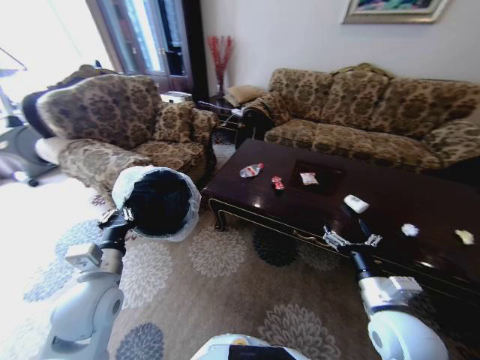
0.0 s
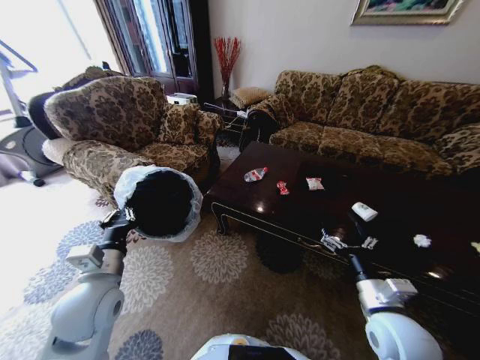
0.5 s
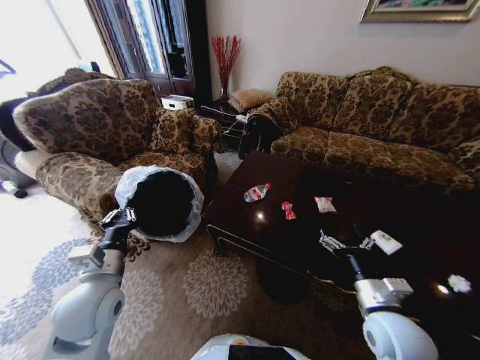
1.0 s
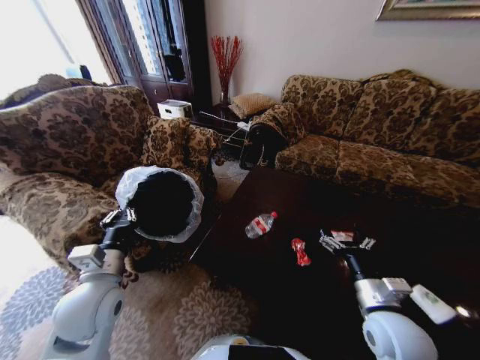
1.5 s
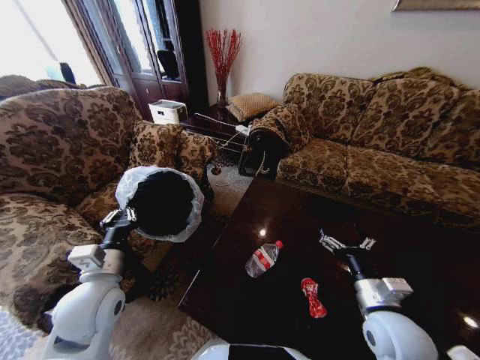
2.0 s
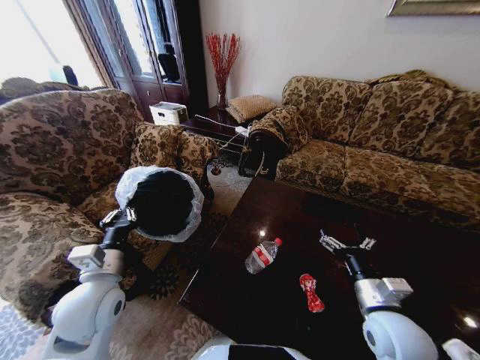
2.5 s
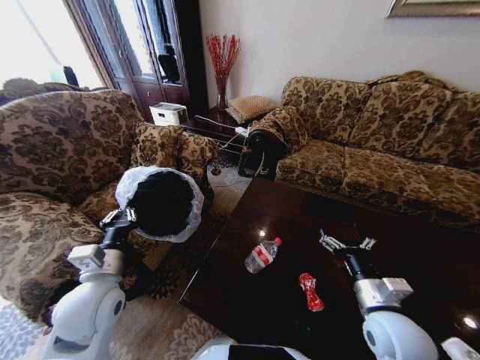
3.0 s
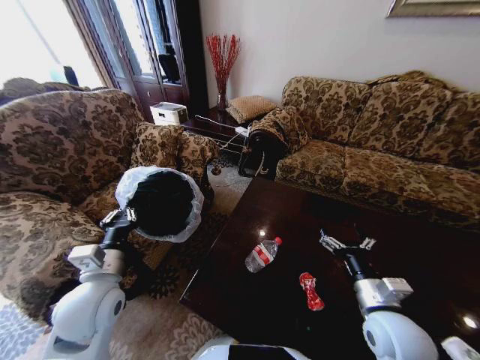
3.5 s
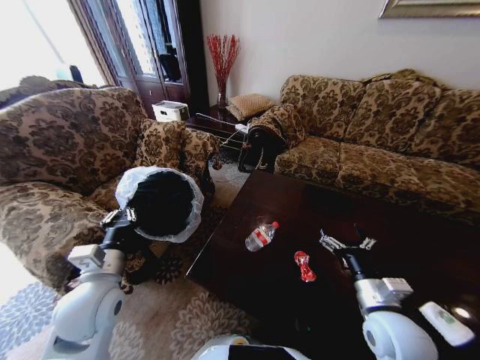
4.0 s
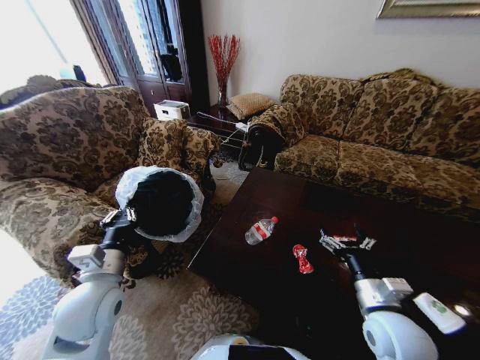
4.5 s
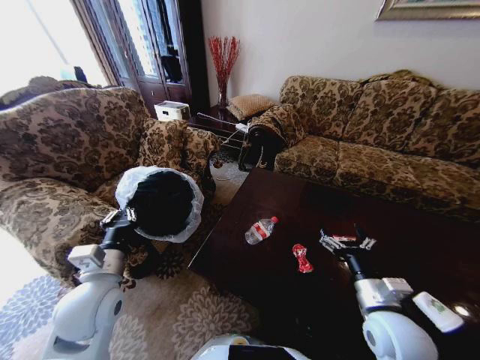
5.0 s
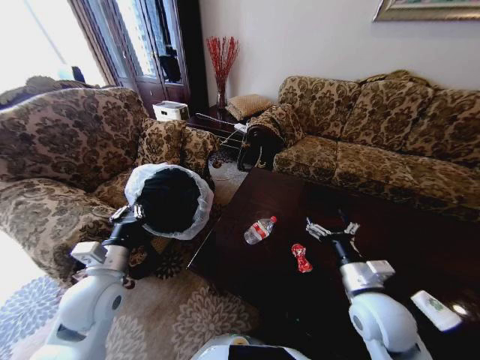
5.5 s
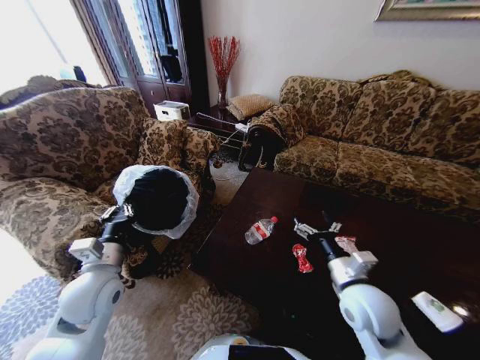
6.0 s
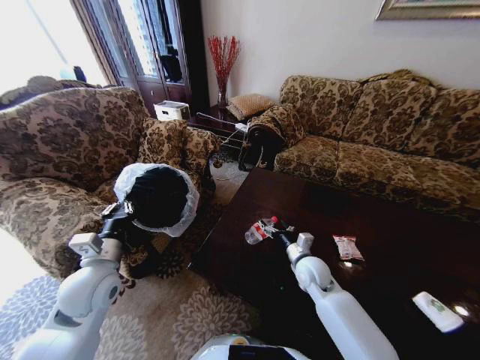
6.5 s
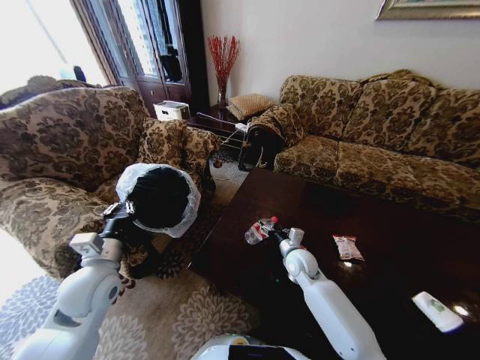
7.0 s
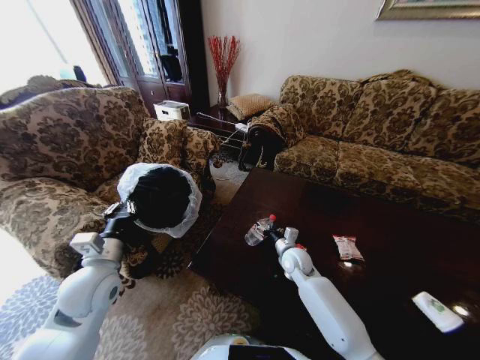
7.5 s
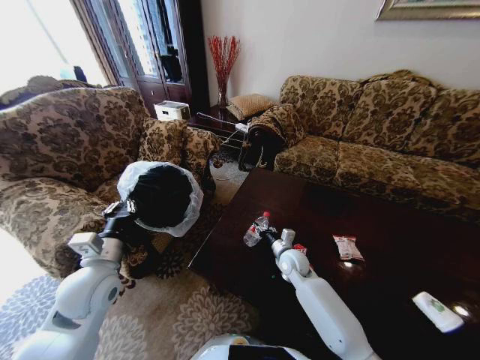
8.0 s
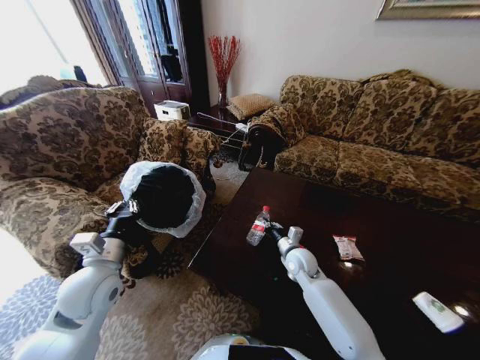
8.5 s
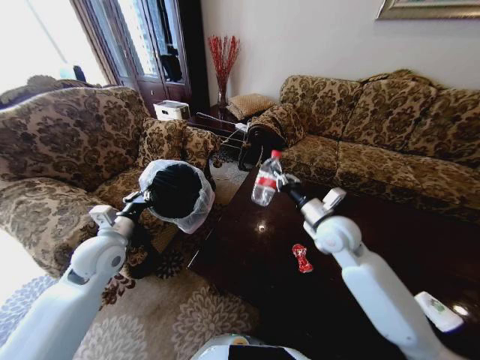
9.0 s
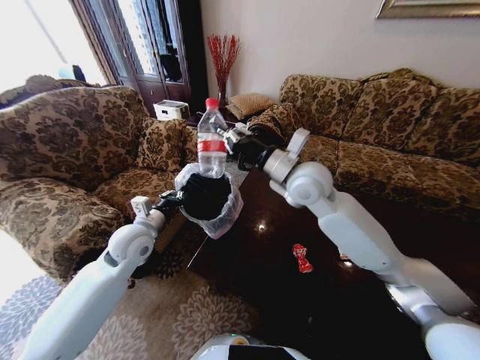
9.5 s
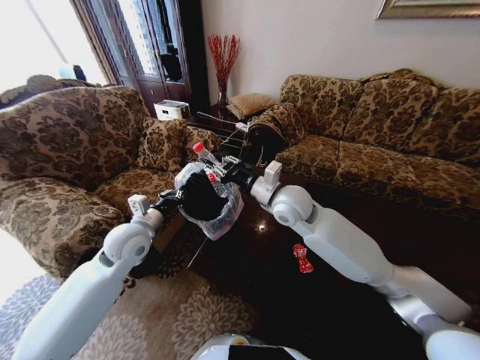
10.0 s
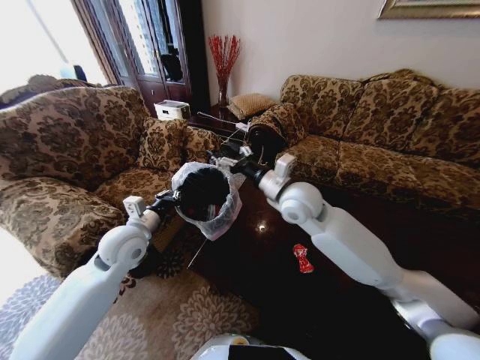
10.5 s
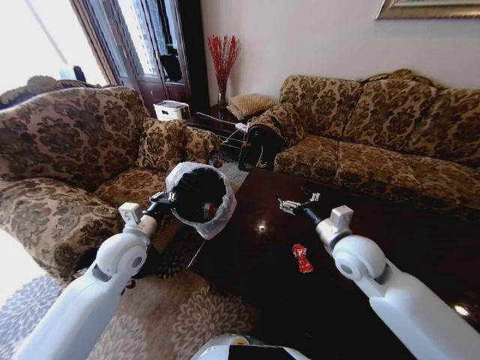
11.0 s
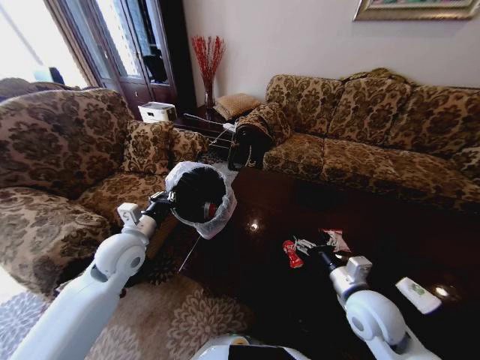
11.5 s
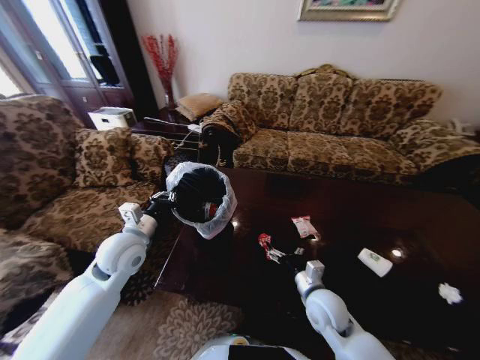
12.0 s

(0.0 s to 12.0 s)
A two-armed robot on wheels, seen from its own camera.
Task of the whole recording: Move to the front of the table and place the trash on the table into the trash bin.
4.0 s - 6.0 s: The right gripper shifts by about 5 cm.
6.0 s - 8.0 s: The right gripper goes approximately 25 cm forward, downward and to the left, and closes its fingers.
8.0 s - 10.0 s: The left gripper is displaced forward by about 10 cm. The right gripper travels upward by roughly 25 cm.
10.0 s - 12.0 s: The right gripper heads downward, backward and to the right, covering approximately 30 cm, and opens up.

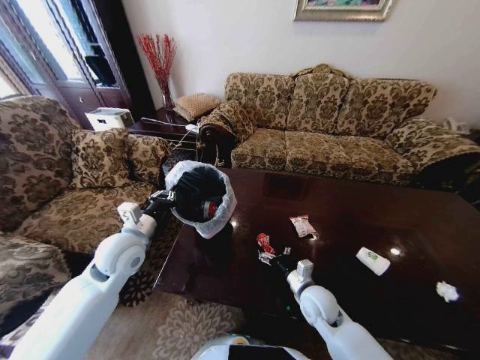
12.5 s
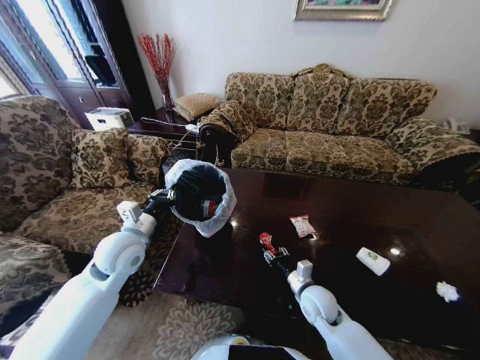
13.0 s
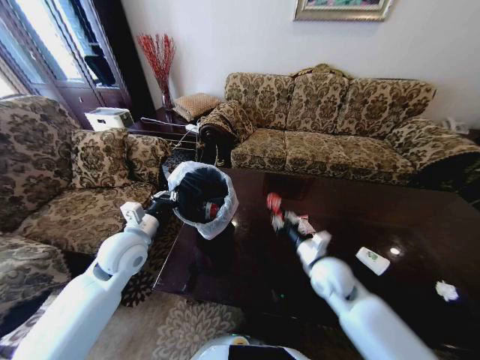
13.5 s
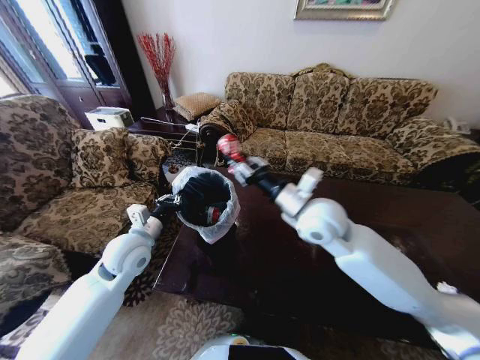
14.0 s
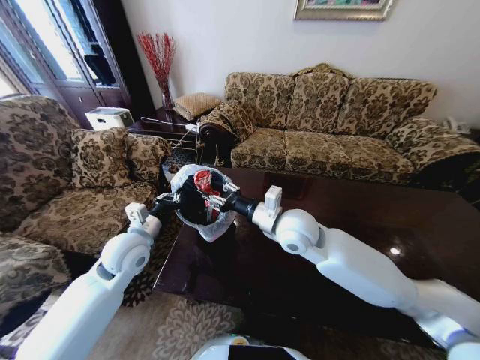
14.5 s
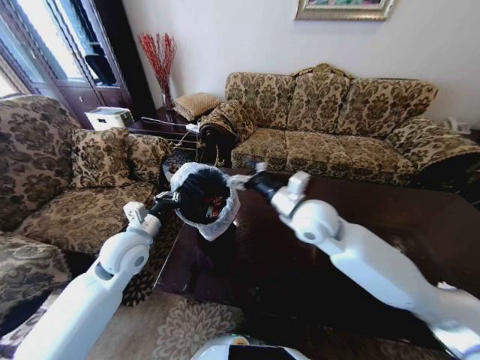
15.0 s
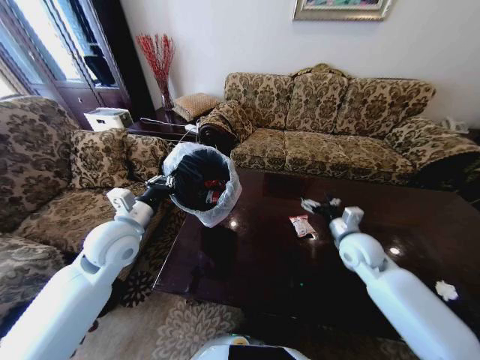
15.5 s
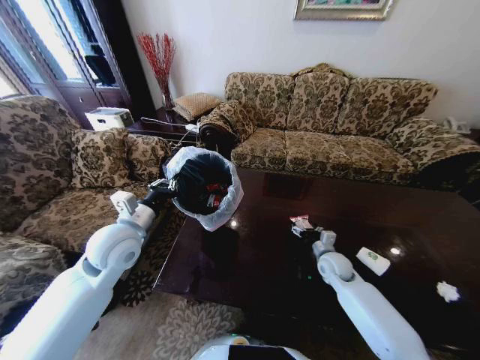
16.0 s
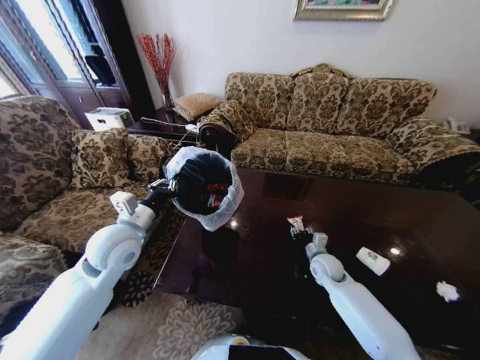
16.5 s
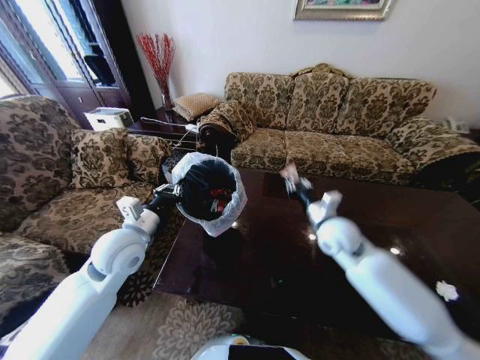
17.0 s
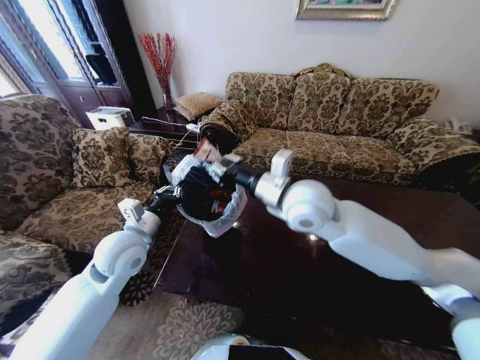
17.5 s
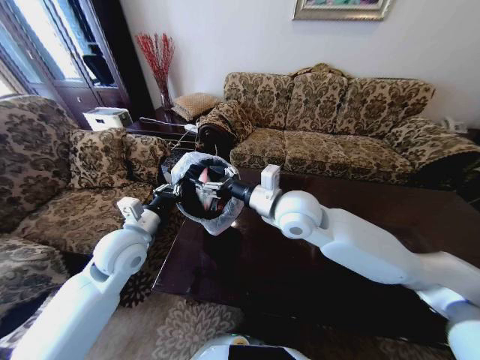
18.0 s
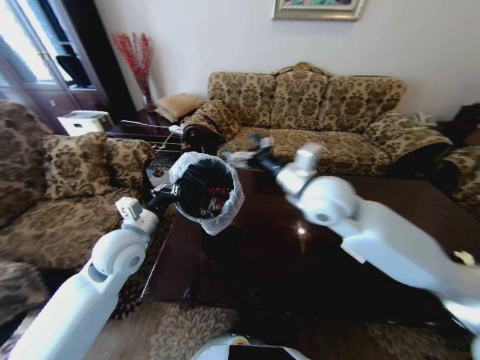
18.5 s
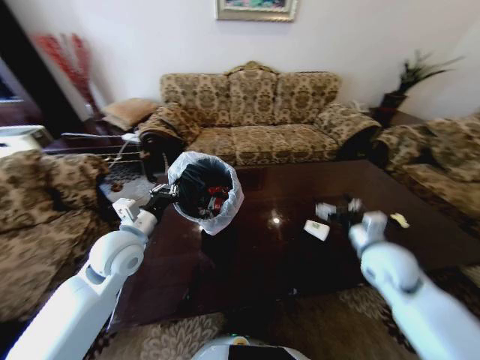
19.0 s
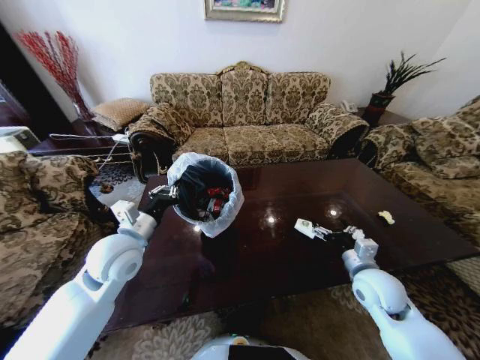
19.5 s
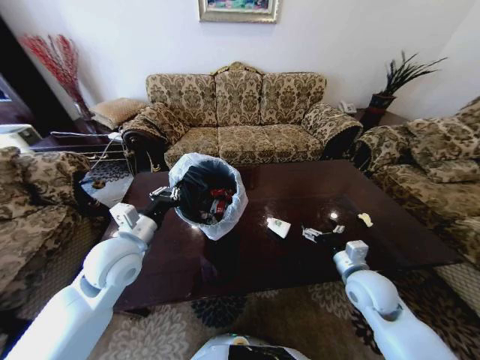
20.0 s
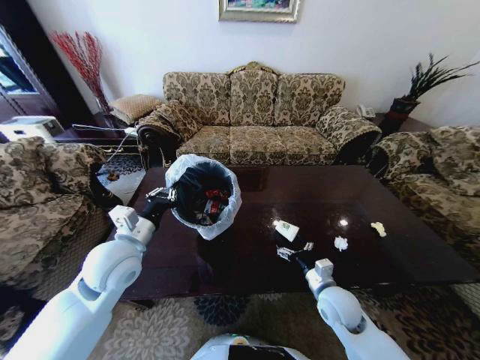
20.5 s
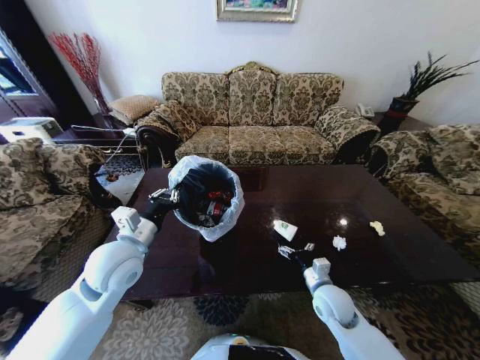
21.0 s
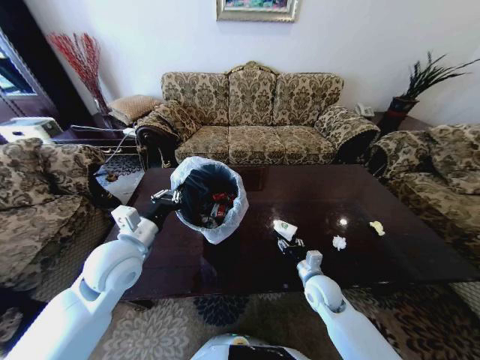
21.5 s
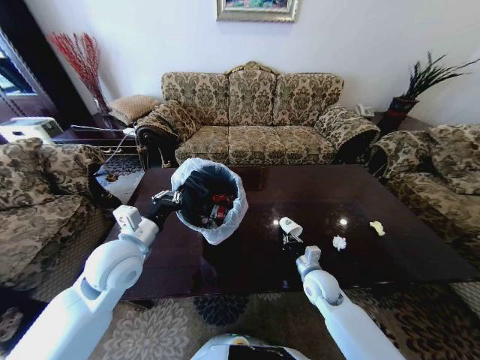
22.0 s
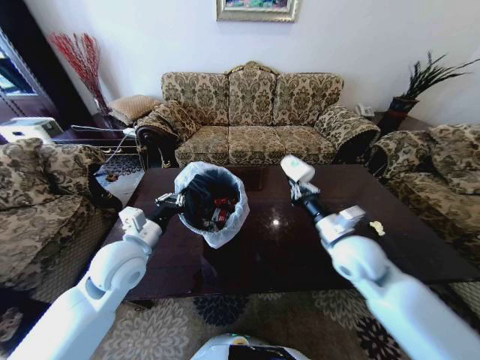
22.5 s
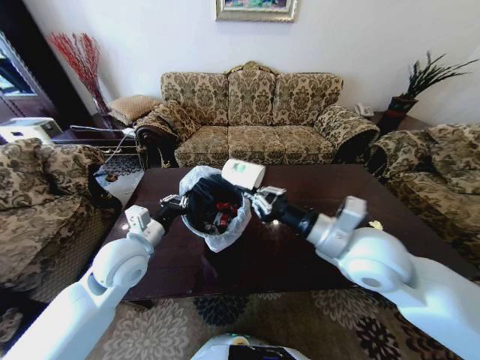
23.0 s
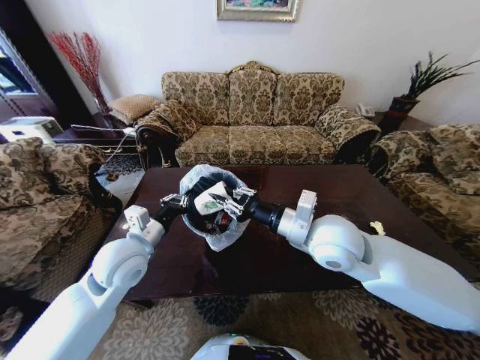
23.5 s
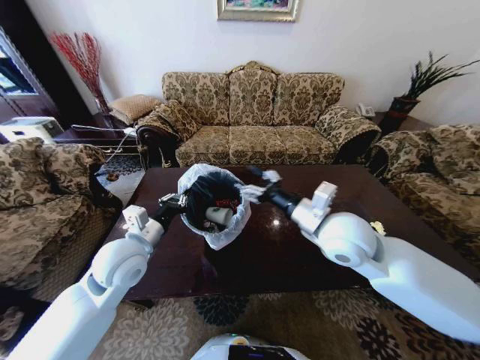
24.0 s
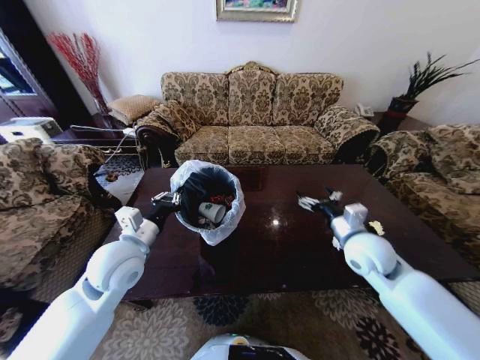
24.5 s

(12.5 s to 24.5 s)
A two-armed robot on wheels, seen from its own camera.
Task of the whole recording: Move to the front of the table and place the trash on the table into the trash bin.
12.5 s - 14.5 s: The right gripper is displaced upward and to the left by some 25 cm, and closes.
14.5 s - 16.5 s: The right gripper goes roughly 30 cm downward and to the right, and opens and closes again.
16.5 s - 18.5 s: The right gripper shifts roughly 35 cm upward and to the left, and opens up.
18.5 s - 20.5 s: The right gripper shifts roughly 30 cm downward.
20.5 s - 22.5 s: The right gripper moves upward, some 15 cm, and closes.
22.5 s - 24.5 s: The right gripper goes roughly 5 cm to the right, and opens up.

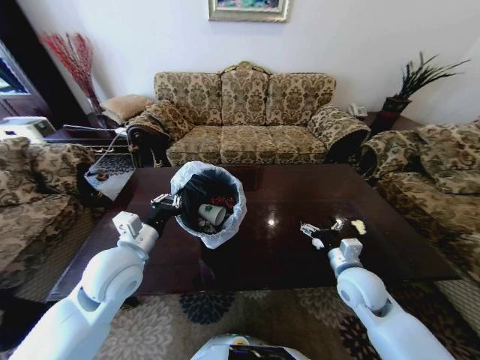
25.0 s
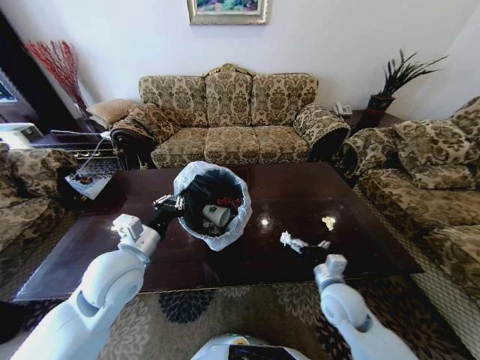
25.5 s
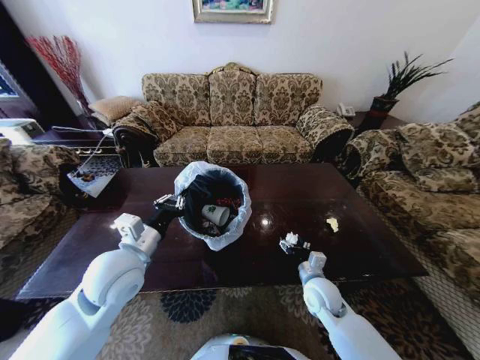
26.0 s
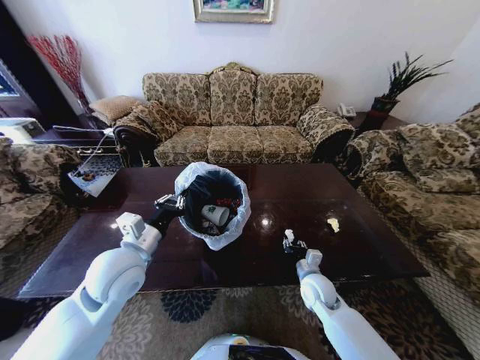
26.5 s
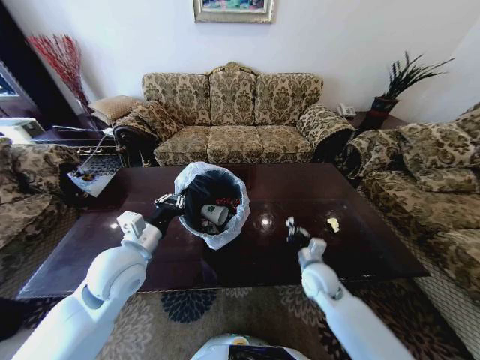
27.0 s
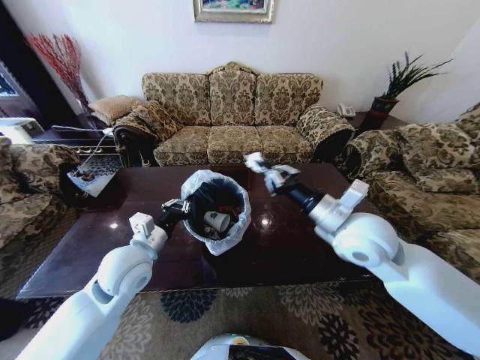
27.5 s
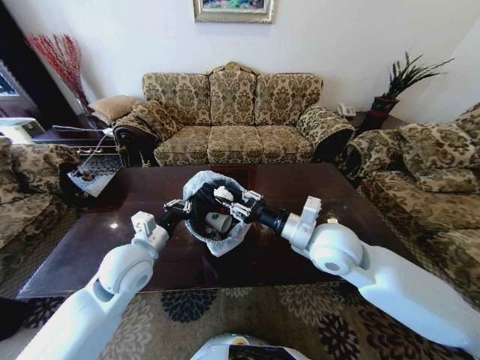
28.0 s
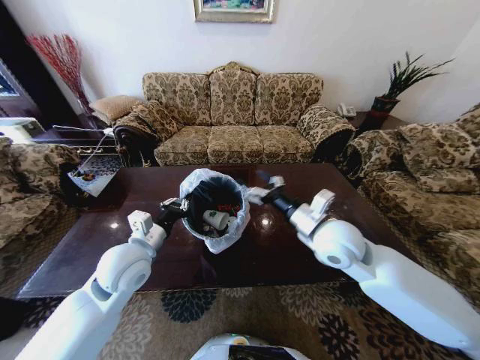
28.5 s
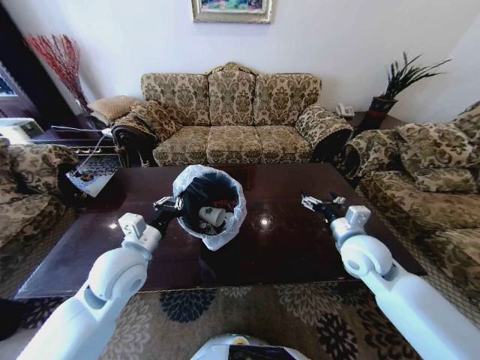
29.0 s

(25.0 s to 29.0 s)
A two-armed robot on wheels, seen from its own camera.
Task of the whole recording: Move to the front of the table and place the trash on the table into the trash bin.
25.0 s - 27.0 s: The right gripper shifts roughly 10 cm to the left and downward, and closes up.
27.0 s - 29.0 s: The right gripper travels upward and to the right by about 15 cm, and opens up.
